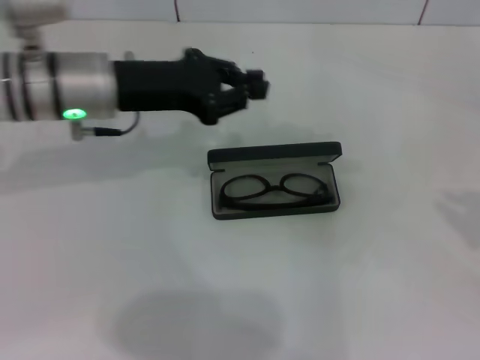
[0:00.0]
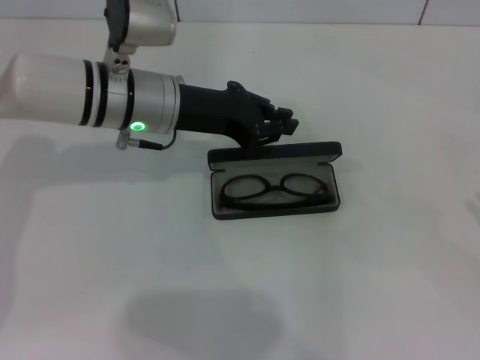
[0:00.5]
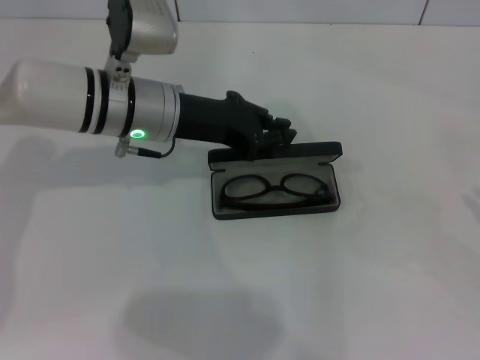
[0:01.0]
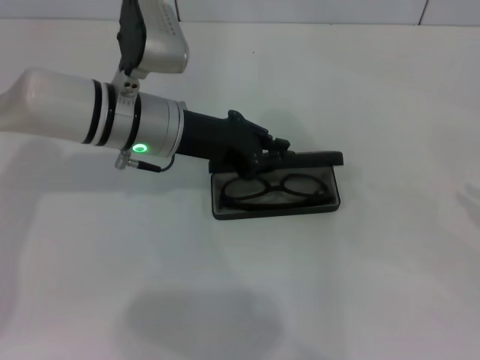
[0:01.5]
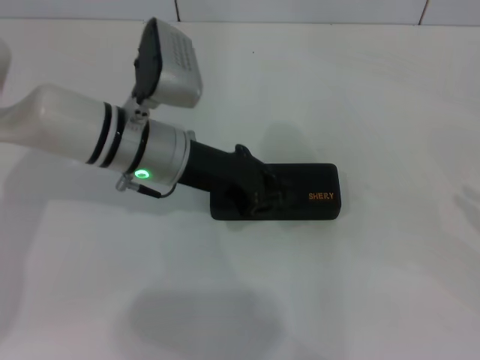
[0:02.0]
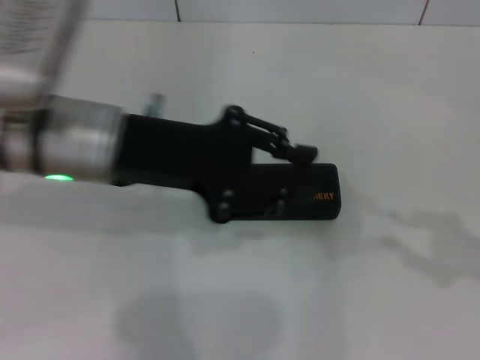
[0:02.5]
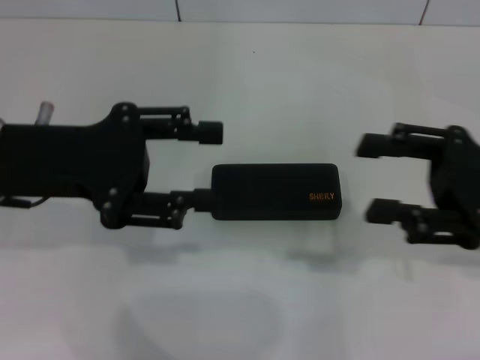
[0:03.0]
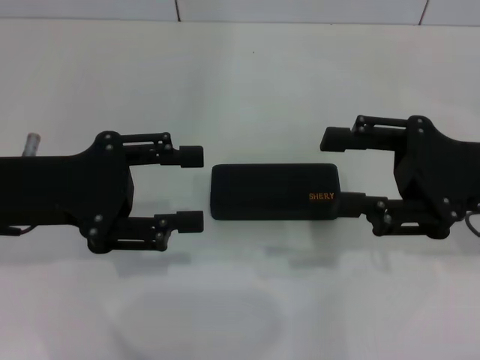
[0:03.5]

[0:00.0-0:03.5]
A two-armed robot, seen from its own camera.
Step, 0:00.0 to 0:02.0: Close the glasses case with your left hand.
0:00.0 to 0:02.0: The left gripper is displaced to the right by roughly 5 cm.
0:02.0 to 0:03.5: The left gripper travels to the left, backward and upward by about 15 cm, and opens; the right gripper travels to the left by some 15 cm, and opens.

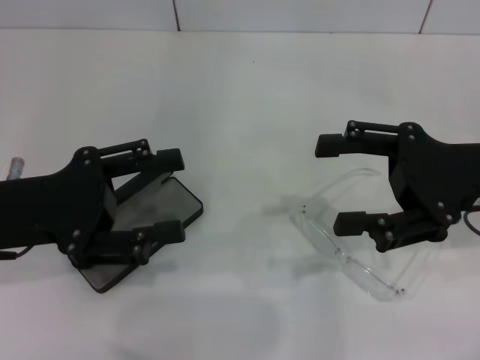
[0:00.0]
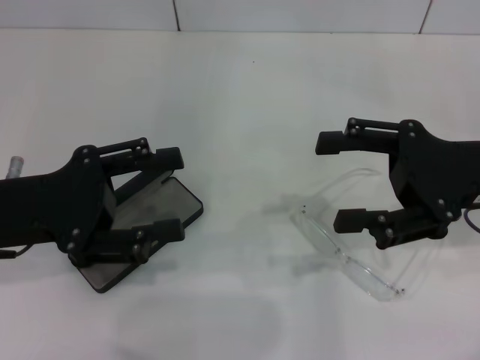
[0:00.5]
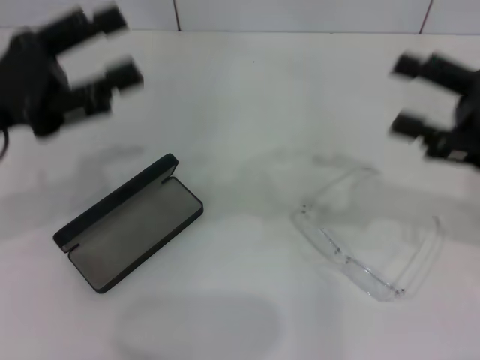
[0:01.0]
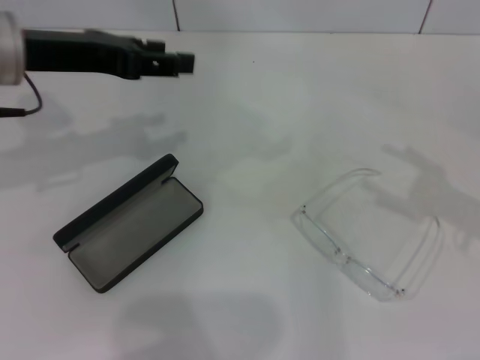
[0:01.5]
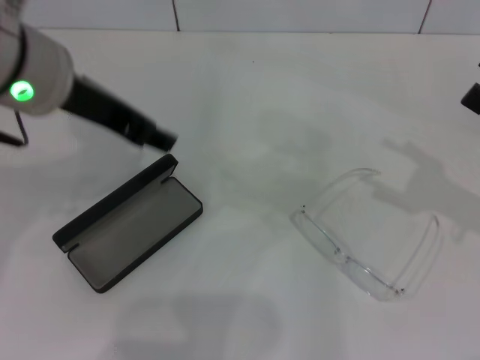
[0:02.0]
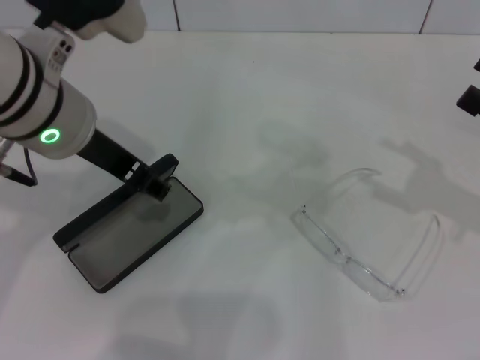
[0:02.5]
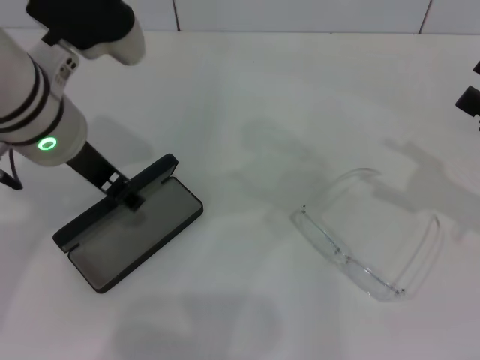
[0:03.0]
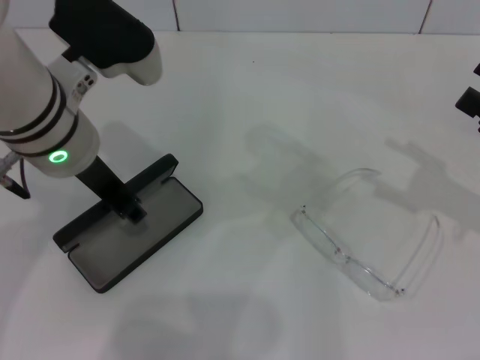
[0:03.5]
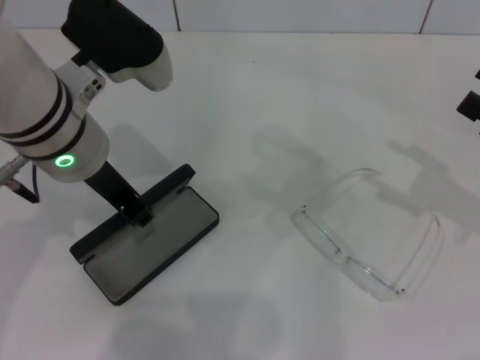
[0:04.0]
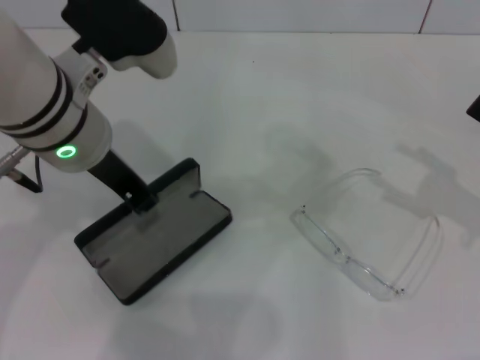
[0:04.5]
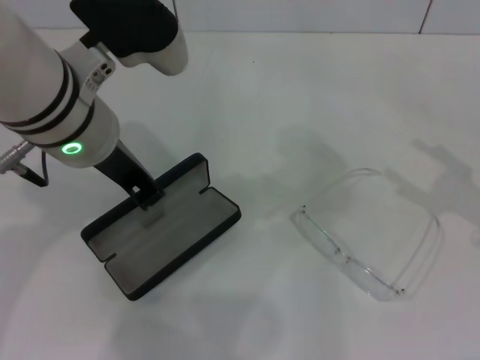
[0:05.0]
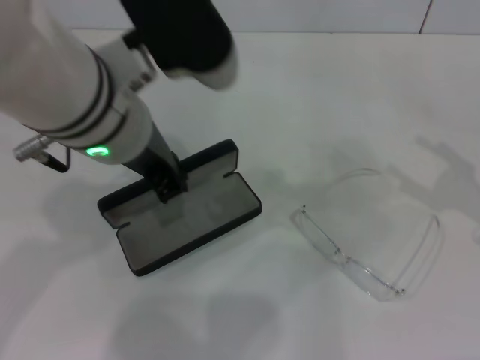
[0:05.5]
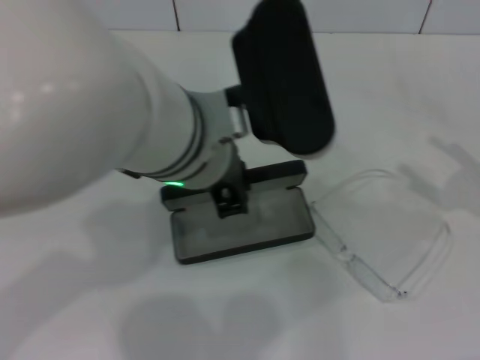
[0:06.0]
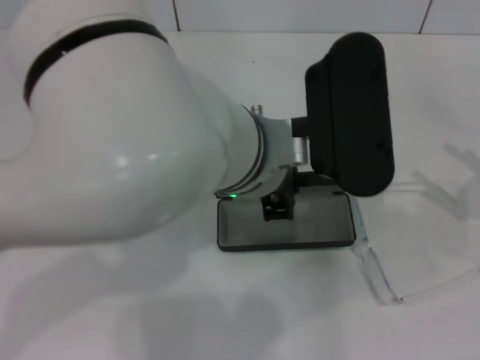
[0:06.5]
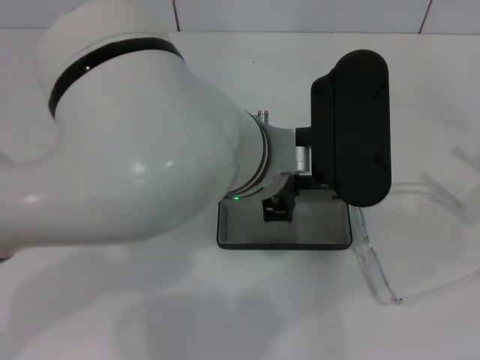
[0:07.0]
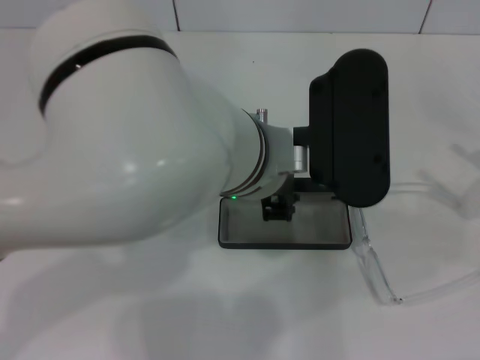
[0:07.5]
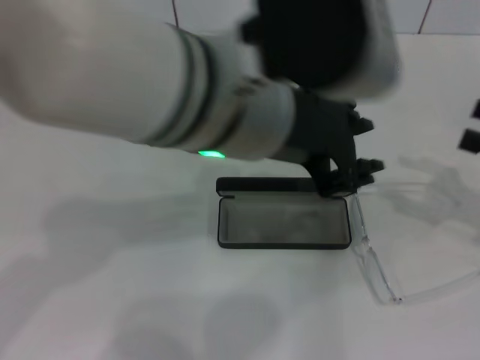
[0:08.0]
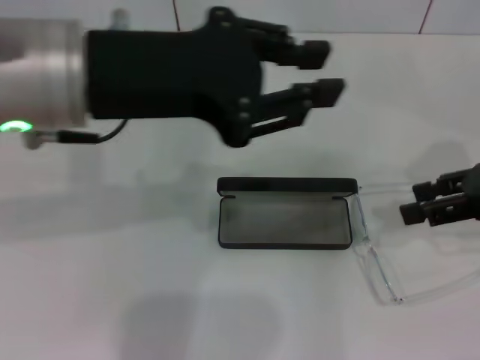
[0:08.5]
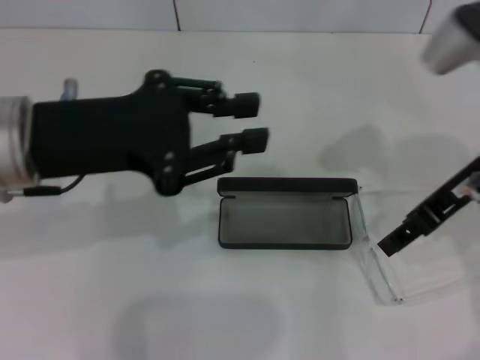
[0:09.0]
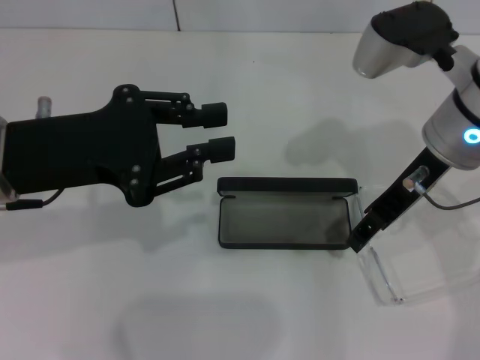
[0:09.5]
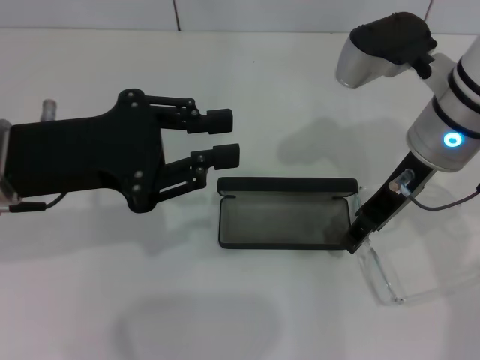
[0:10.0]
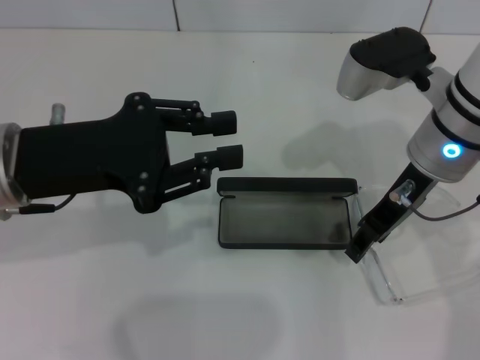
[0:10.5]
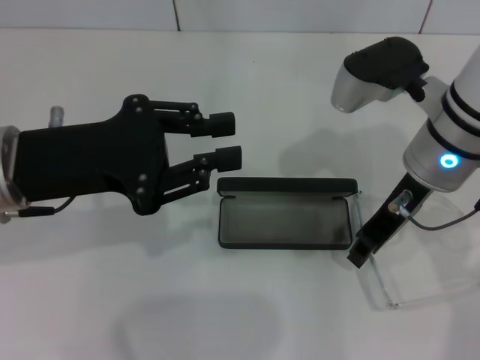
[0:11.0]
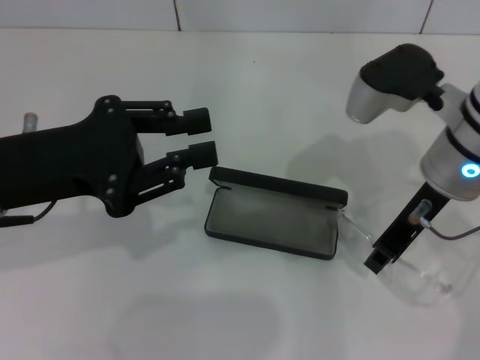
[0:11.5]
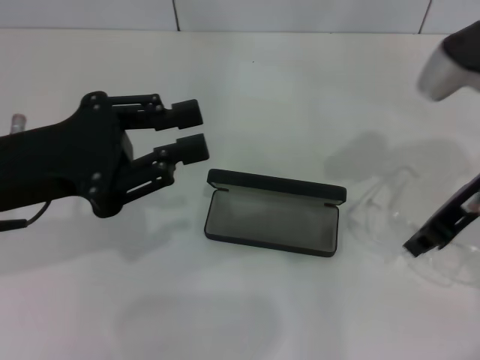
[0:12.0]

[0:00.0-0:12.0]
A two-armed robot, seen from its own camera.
Step, 0:00.0 to 0:04.0: Grab the glasses case with your left hand.
Step, 0:04.5 to 0:07.0: Place the glasses case in the center of the table with your left hand.
Step, 0:07.5 to 0:11.0: Grab the eyeglass frame with your right hand.
0:00.0 to 0:02.0: The right gripper heads to the right, covering about 10 cm; the left gripper heads upward, to the right and forward, covering approximately 15 cm.
0:02.0 to 0:04.0: The left gripper goes some 5 cm downward, and closes up.
0:04.0 to 0:06.0: The left gripper heads to the right, covering roughly 10 cm.
0:08.0 to 0:10.0: The left gripper shifts about 20 cm to the left and downward. The right gripper goes about 20 cm to the left.
0:10.0 to 0:12.0: The right gripper travels to the right by approximately 5 cm, and closes.

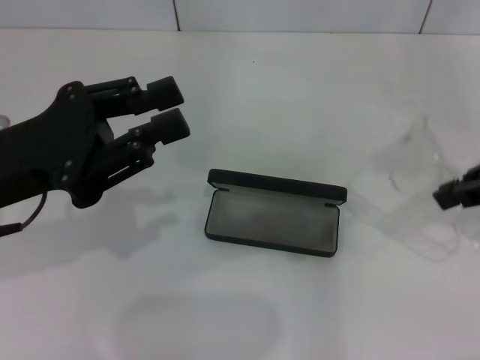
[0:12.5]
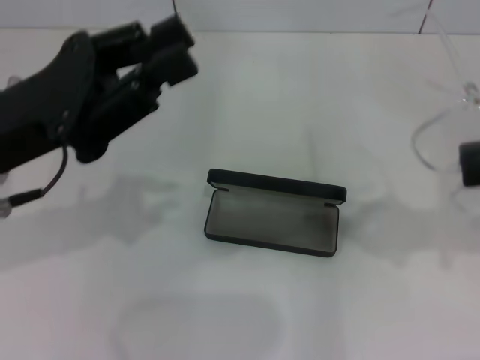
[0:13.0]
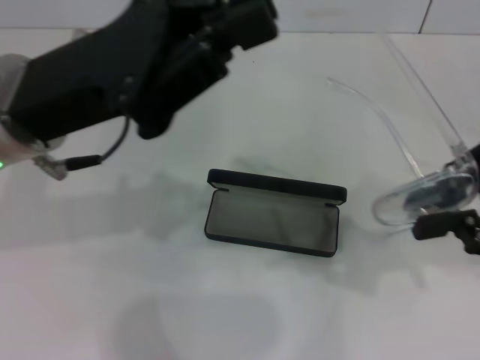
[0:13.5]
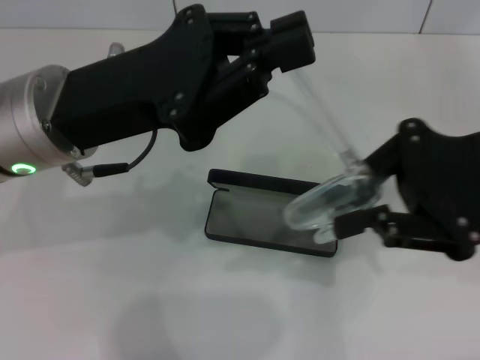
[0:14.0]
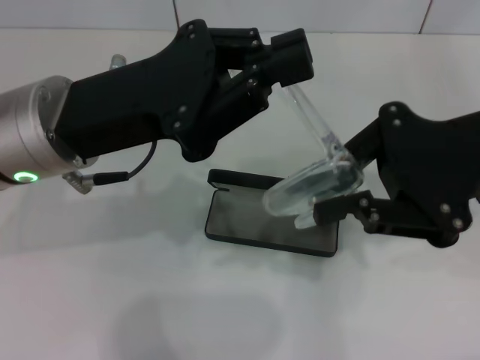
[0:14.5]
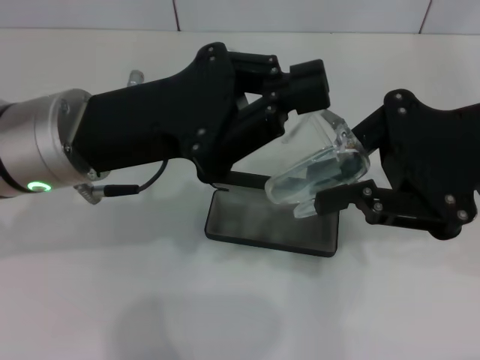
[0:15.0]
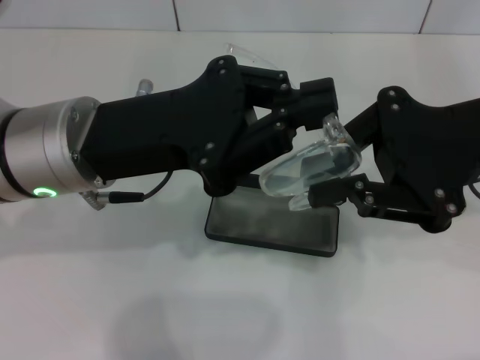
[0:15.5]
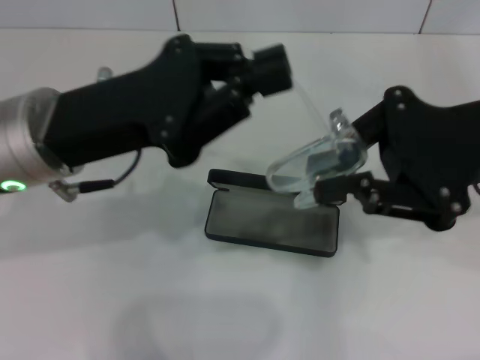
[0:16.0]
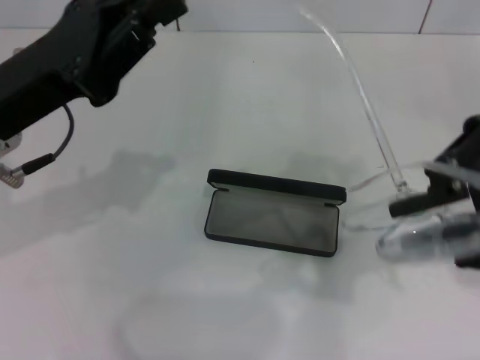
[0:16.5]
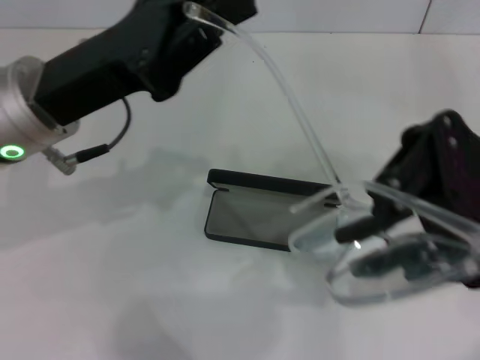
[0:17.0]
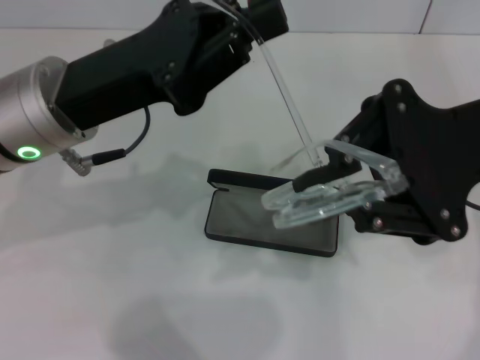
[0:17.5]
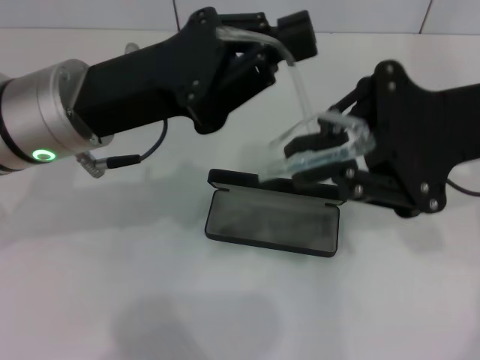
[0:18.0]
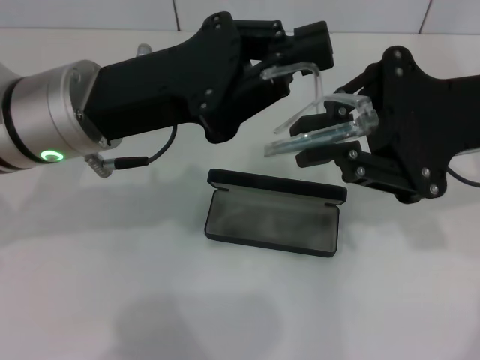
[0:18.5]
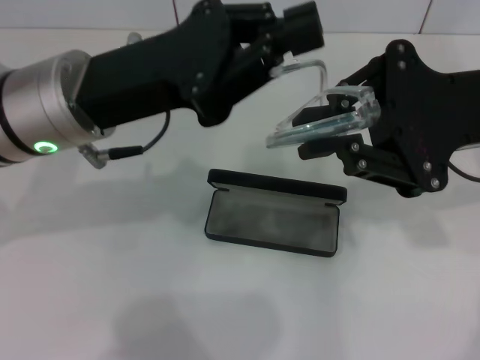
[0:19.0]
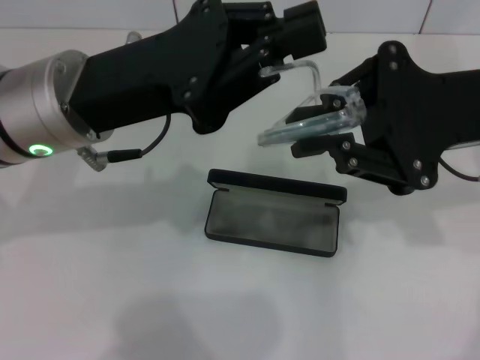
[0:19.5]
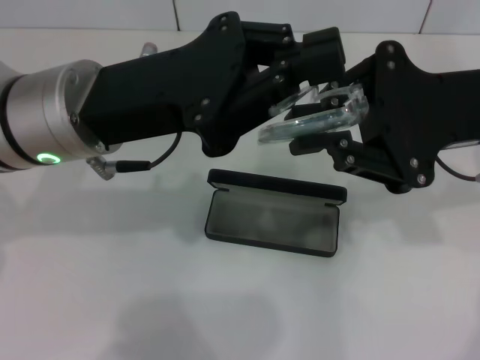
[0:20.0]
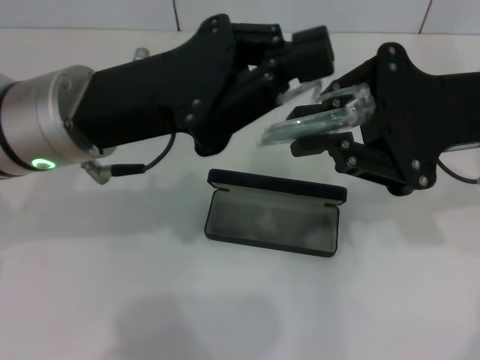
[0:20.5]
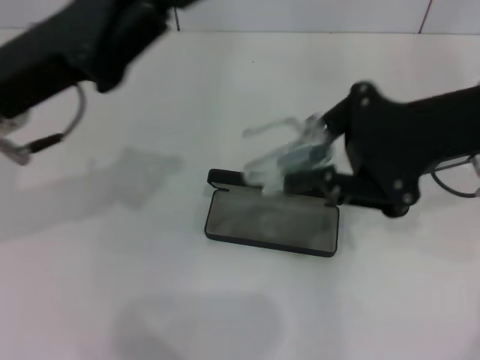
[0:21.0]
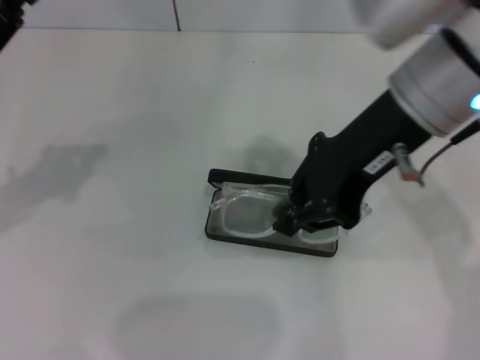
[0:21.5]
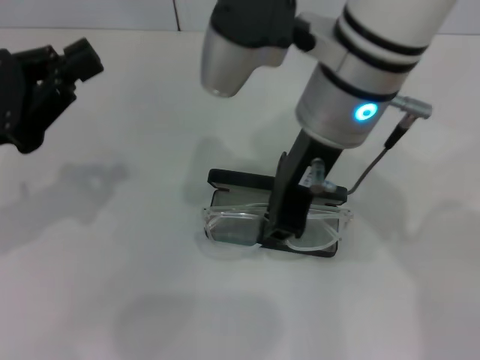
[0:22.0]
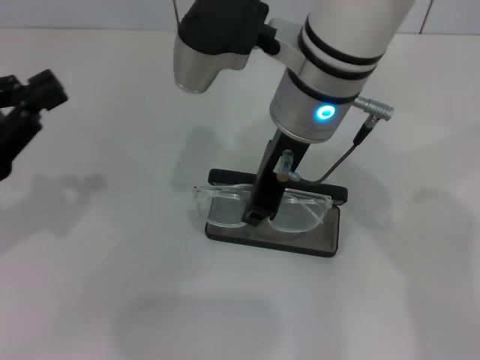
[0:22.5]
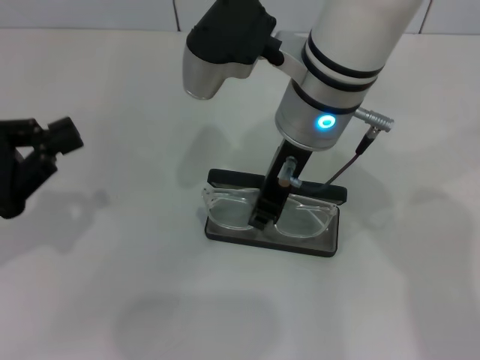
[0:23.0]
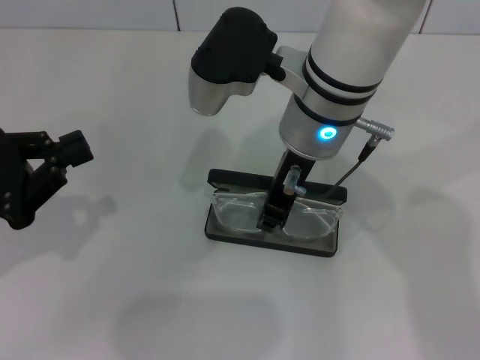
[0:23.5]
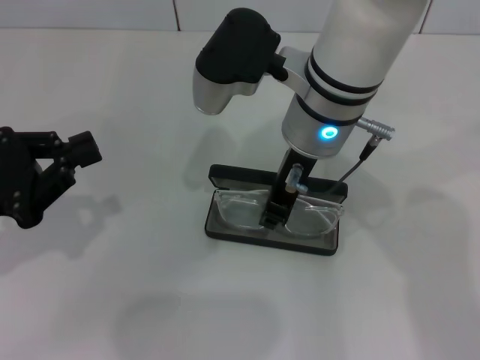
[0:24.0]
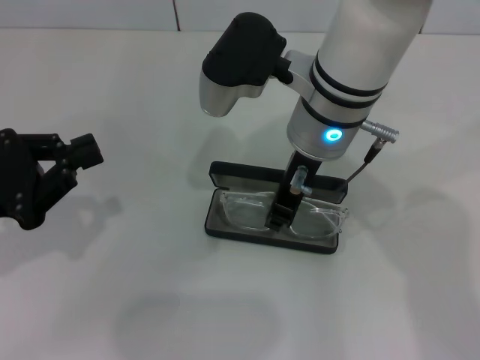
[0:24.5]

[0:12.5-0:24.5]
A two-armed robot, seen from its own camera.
Step, 0:12.5 to 0:20.5: Fold the frame with your left hand.
0:12.5 to 0:14.5: The right gripper goes approximately 5 cm to the left. The left gripper shifts about 10 cm to the right.
0:14.5 to 0:16.5: The left gripper moves to the left, some 5 cm.
0:16.5 to 0:18.5: The right gripper shifts by about 5 cm. The left gripper goes roughly 5 cm to the right.
0:18.5 to 0:20.5: There are only small adjustments of the grippers.
0:20.5 to 0:22.5: The two grippers go roughly 15 cm to the left.
